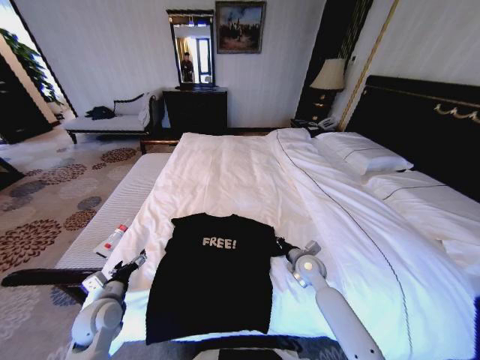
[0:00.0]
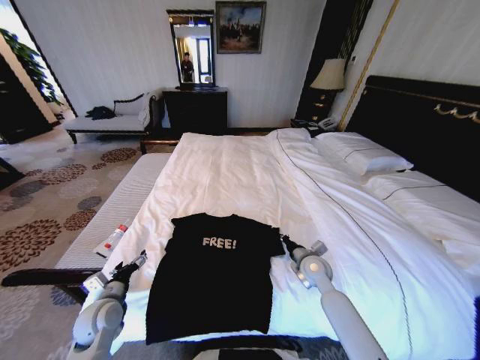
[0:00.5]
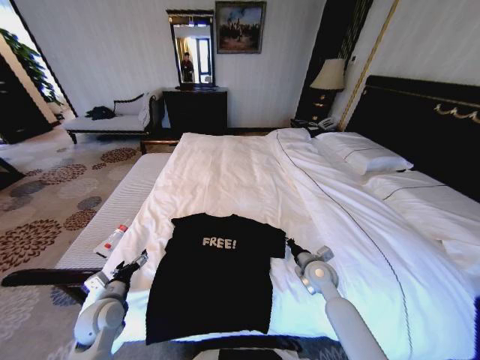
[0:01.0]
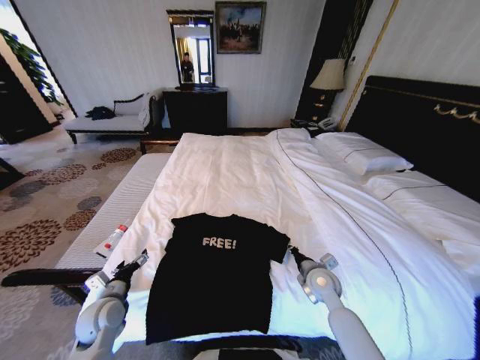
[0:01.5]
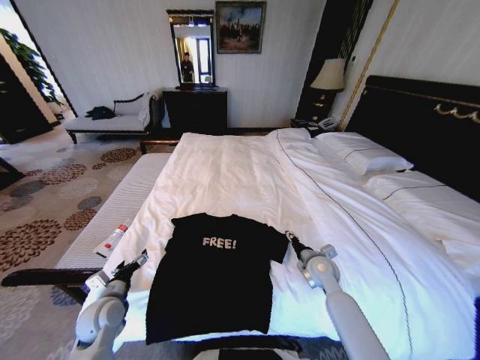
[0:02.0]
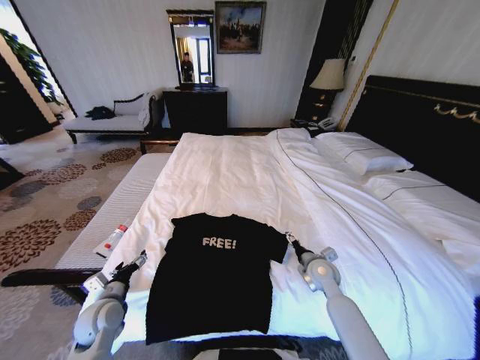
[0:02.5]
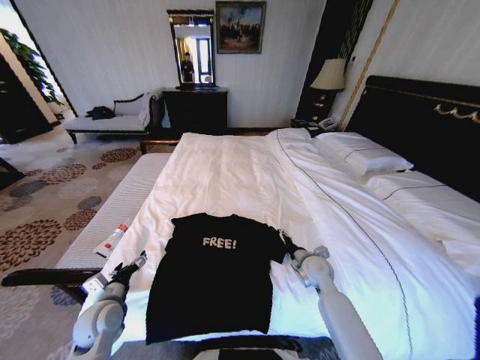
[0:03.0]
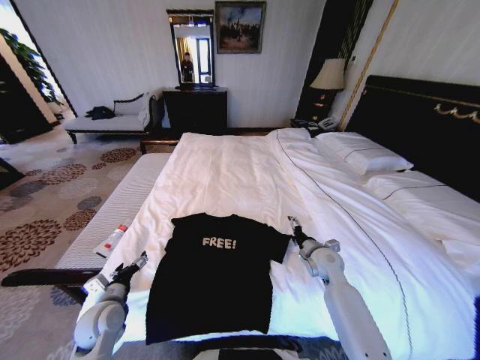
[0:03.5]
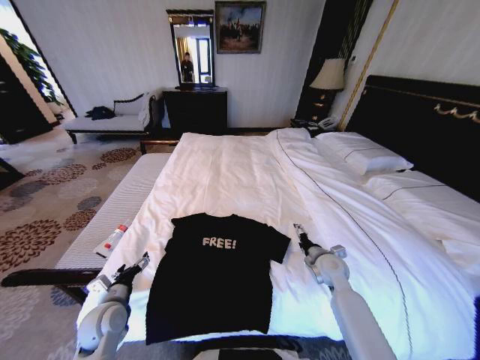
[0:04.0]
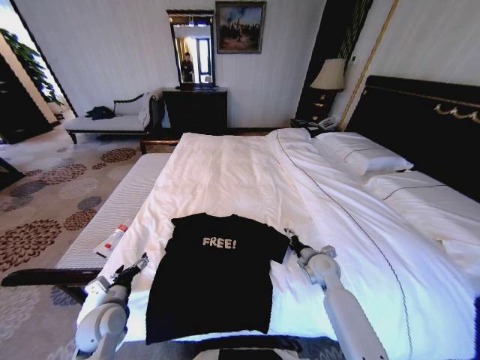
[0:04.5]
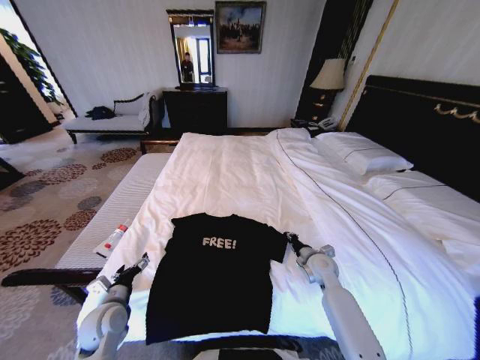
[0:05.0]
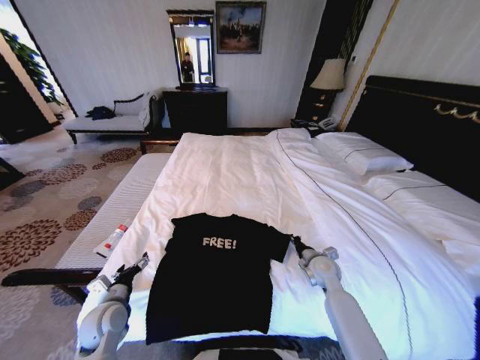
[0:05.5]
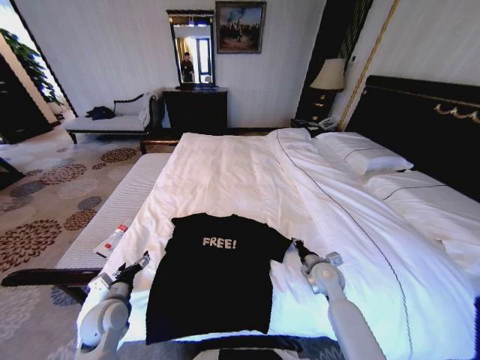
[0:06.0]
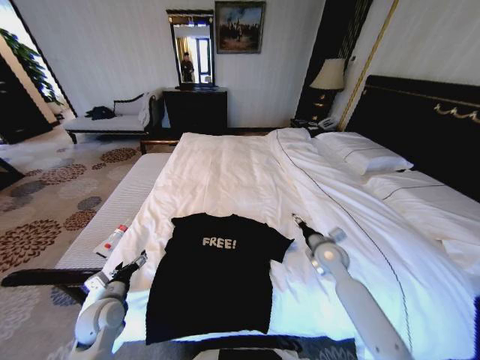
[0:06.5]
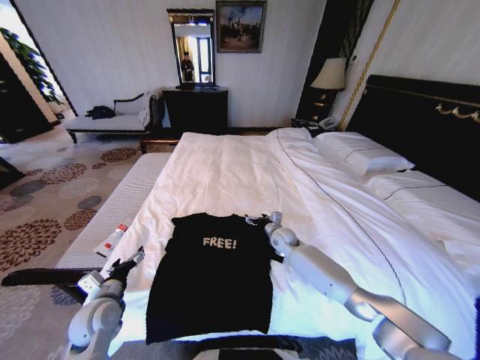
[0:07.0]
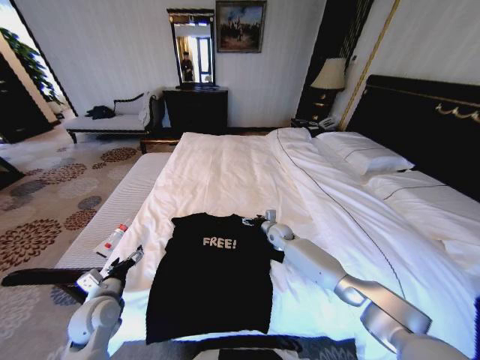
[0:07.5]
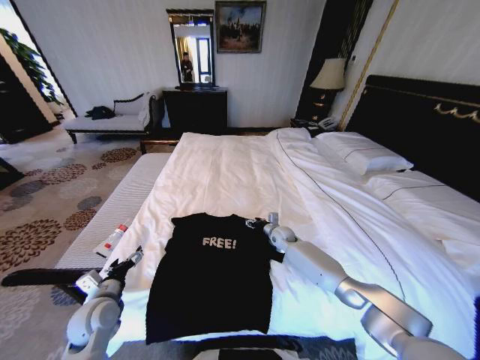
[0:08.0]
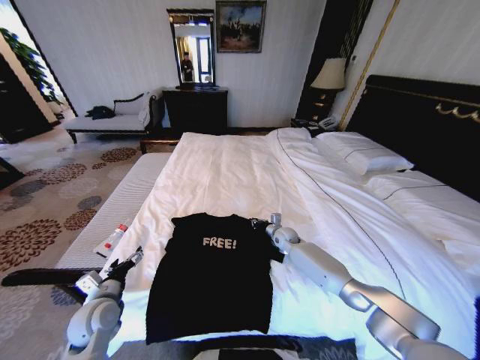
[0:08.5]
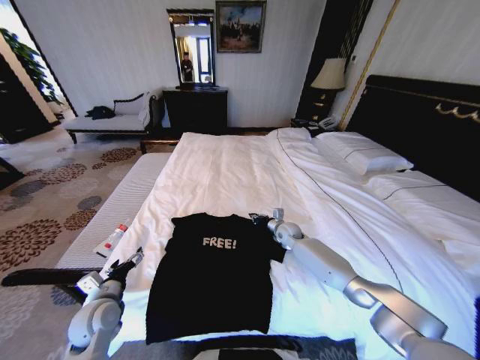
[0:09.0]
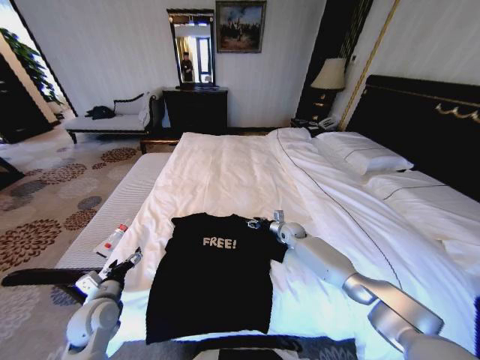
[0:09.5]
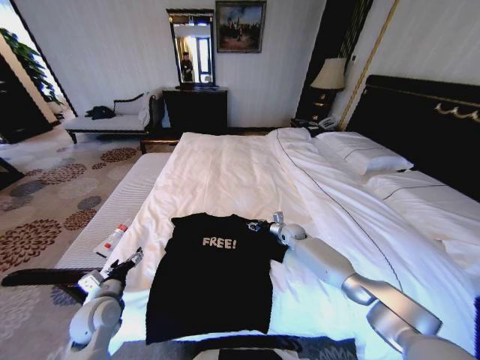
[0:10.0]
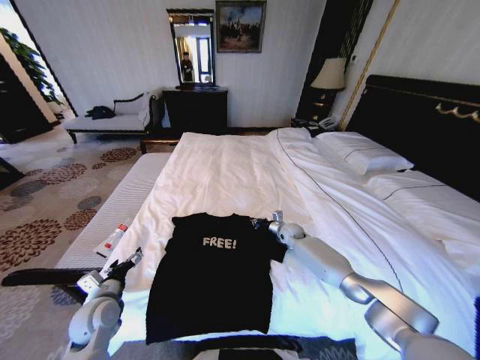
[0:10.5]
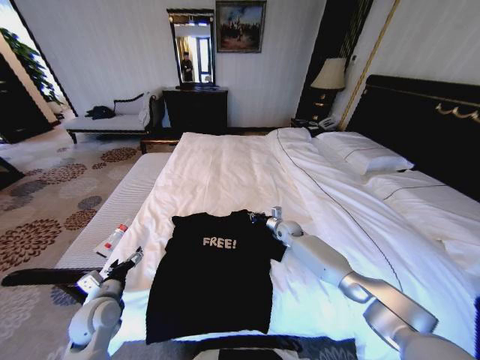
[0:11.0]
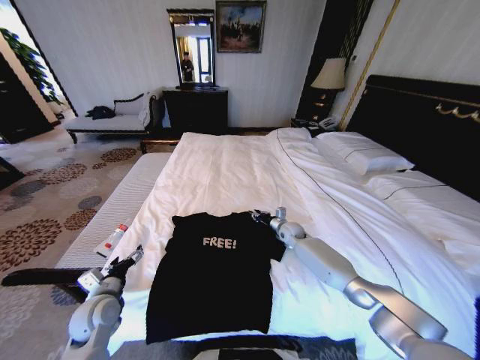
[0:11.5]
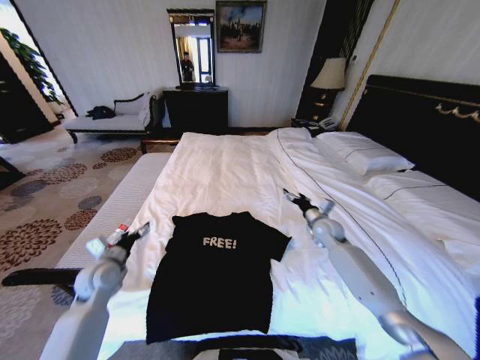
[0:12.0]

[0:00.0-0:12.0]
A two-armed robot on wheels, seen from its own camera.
Task of the whole recording: Fold the clothes on the bed.
0:00.0 to 0:02.0: The right gripper opens its fingers.
0:02.0 to 0:04.0: The right gripper opens its fingers.
0:04.0 to 0:06.0: The right gripper closes its fingers.
0:06.0 to 0:08.0: The right gripper travels forward and to the left by roughly 20 cm, and opens.
0:08.0 to 0:10.0: The right gripper moves roughly 5 cm, and closes and opens again.
0:10.0 to 0:12.0: The left gripper moves forward, about 5 cm, while the right gripper shifts approximately 15 cm upward, to the right and backward, and closes and opens again.

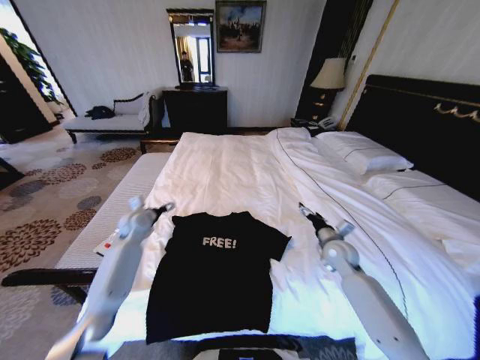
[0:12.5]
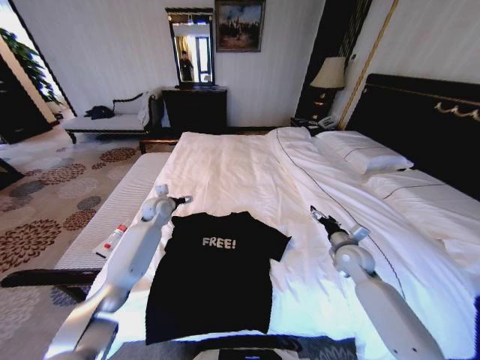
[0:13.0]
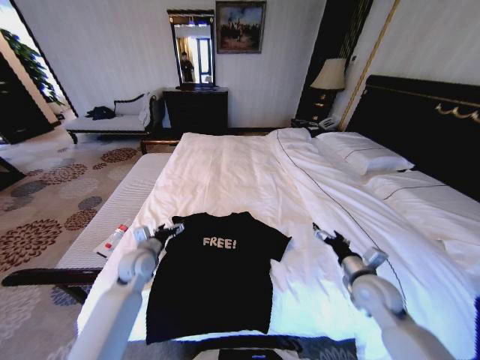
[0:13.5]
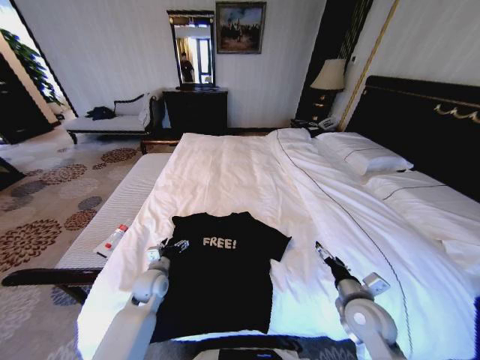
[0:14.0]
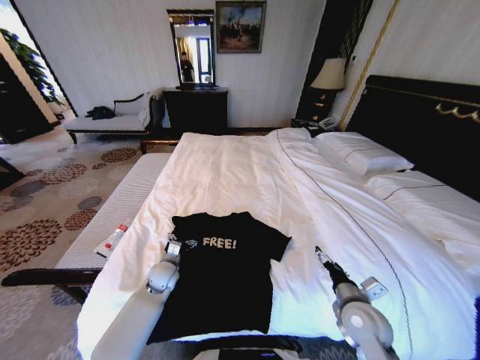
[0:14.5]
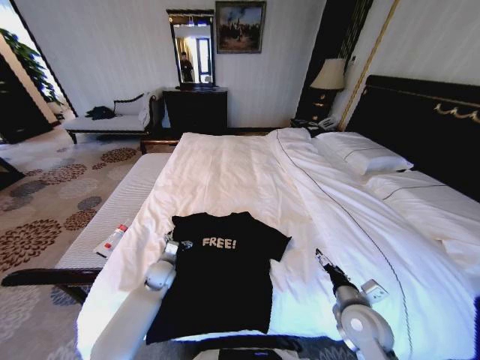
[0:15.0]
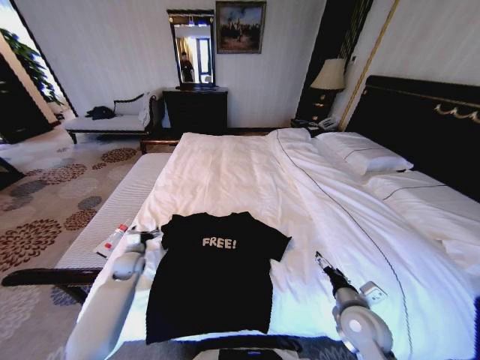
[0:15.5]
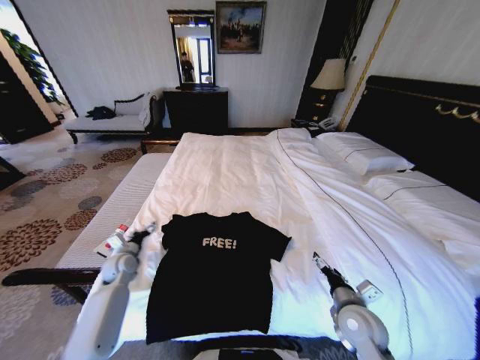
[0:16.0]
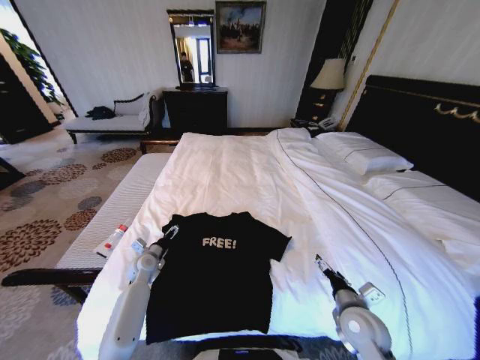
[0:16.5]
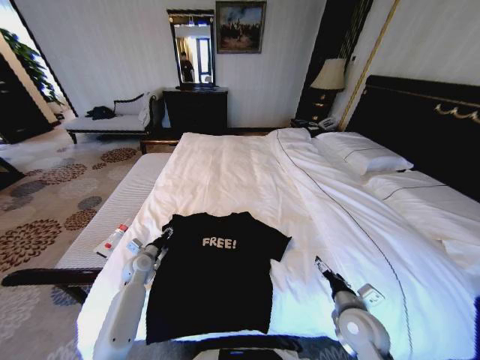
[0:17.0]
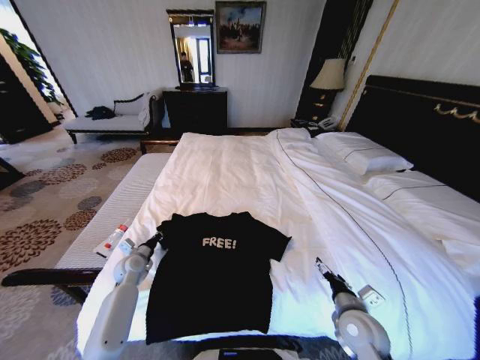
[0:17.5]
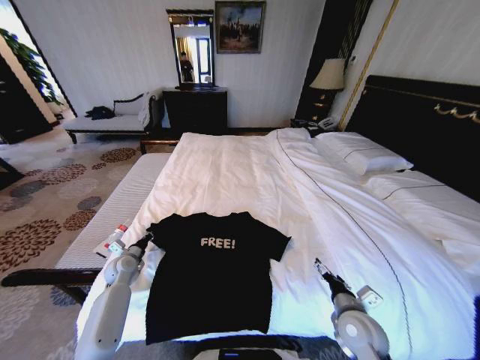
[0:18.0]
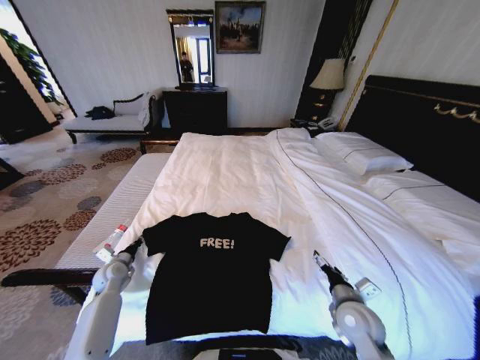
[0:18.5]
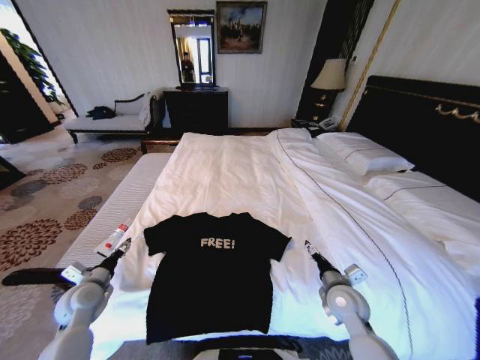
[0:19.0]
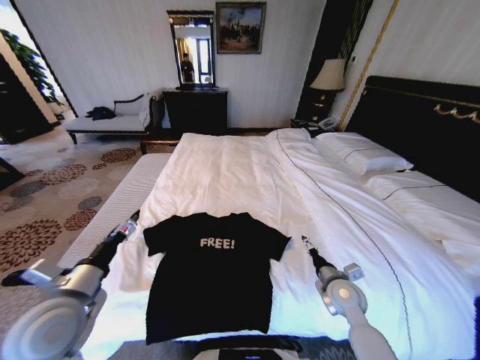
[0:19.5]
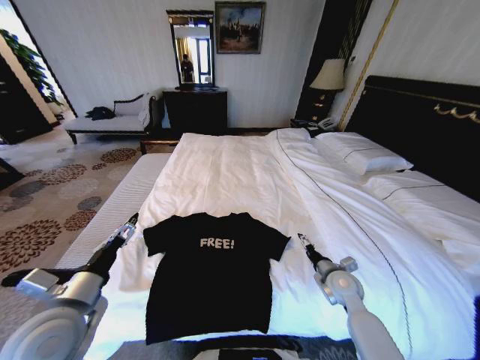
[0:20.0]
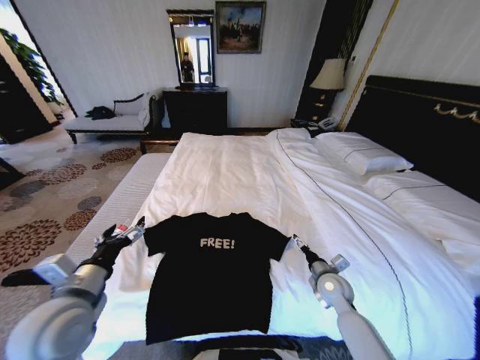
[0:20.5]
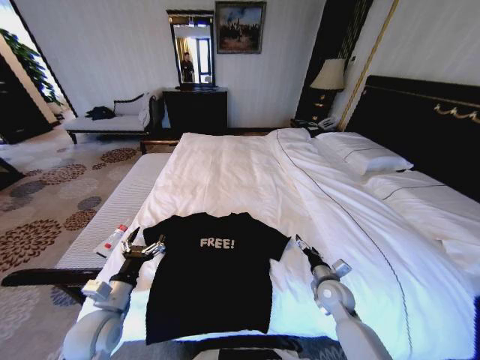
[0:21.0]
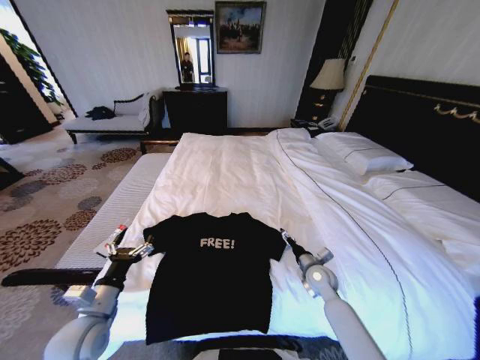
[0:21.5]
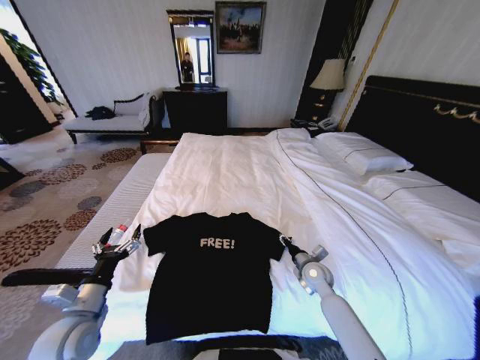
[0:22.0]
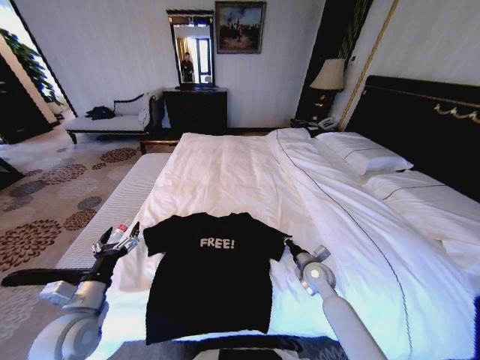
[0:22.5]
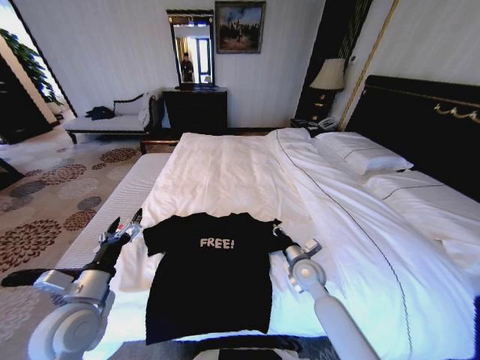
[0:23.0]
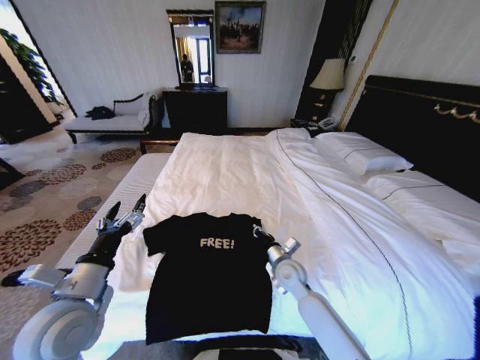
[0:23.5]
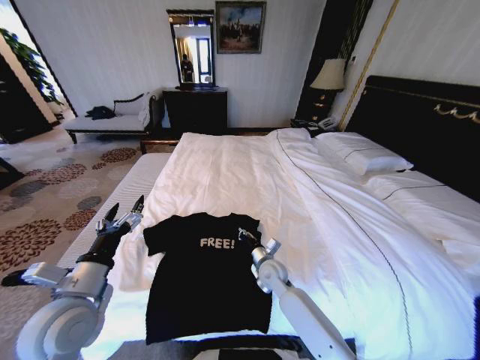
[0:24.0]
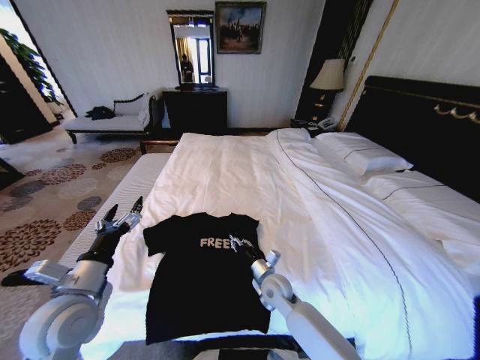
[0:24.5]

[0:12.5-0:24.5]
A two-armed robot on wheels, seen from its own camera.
Task of the whole recording: Fold the clothes on the bed.
0:12.5 to 0:14.5: The right gripper goes approximately 20 cm backward, while the left gripper goes some 20 cm downward, backward and to the right.
0:14.5 to 0:16.5: The left gripper travels to the left by some 10 cm.
0:16.5 to 0:18.5: The left gripper moves to the left, approximately 10 cm, and closes.
0:18.5 to 0:20.5: The left gripper is displaced upward, backward and to the right by approximately 30 cm, and opens. The right gripper heads forward, covering roughly 10 cm.
0:20.5 to 0:22.5: The left gripper moves downward, roughly 10 cm, while the right gripper shifts by approximately 5 cm, and closes up.
0:22.5 to 0:24.5: The right gripper moves to the left, about 15 cm, and opens its fingers, while the left gripper travels upward by about 5 cm.

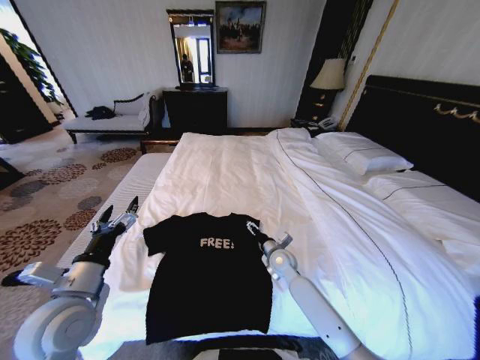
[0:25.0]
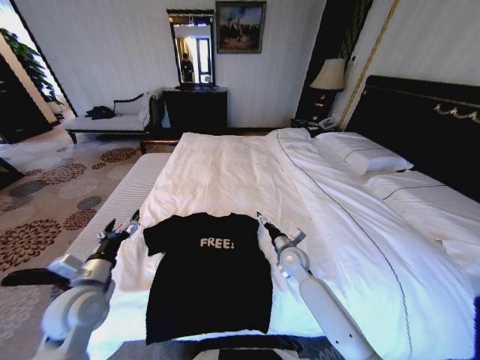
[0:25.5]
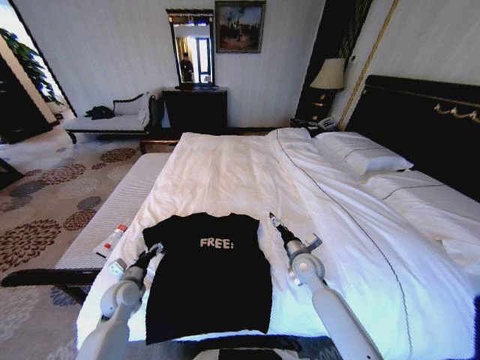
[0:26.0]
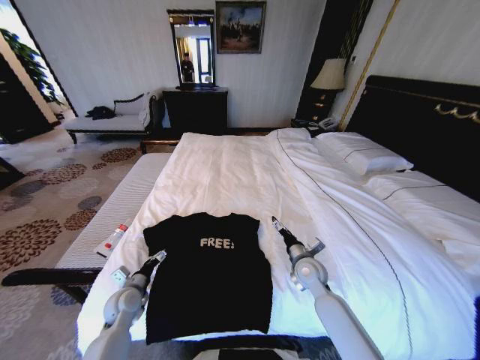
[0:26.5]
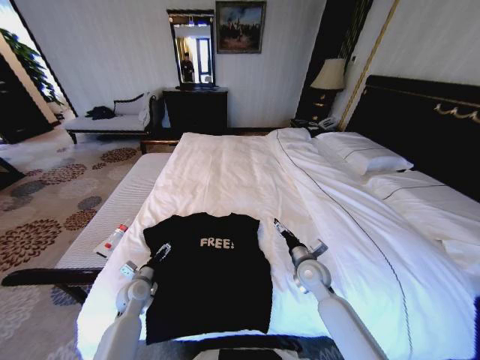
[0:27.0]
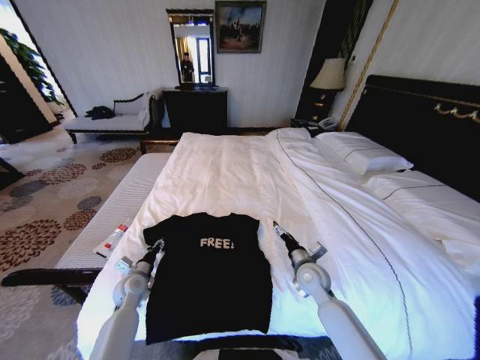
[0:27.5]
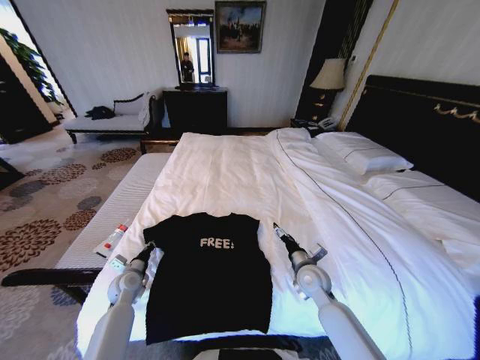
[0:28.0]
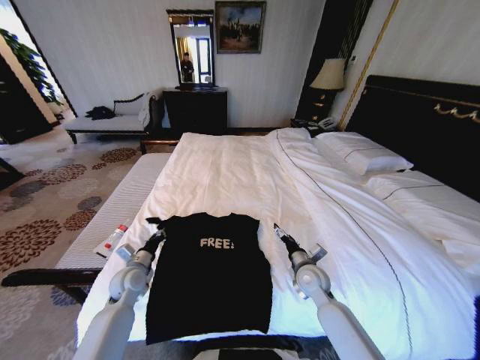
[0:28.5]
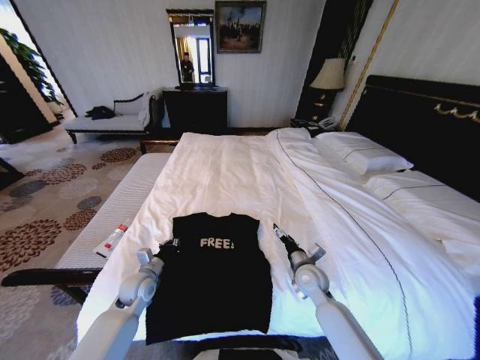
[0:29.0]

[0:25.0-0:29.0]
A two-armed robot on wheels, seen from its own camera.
Task of the whole recording: Fold the clothes on the bed.
0:25.0 to 0:27.0: The right gripper shifts approximately 10 cm to the right and backward; the left gripper is displaced downward and forward by approximately 25 cm.
0:27.0 to 0:29.0: The left gripper moves about 5 cm, and closes up.
